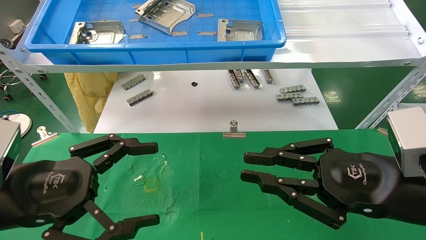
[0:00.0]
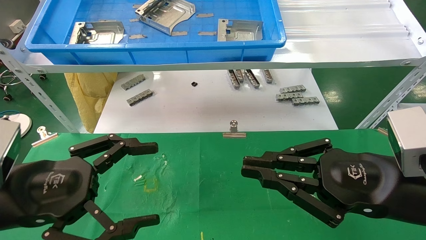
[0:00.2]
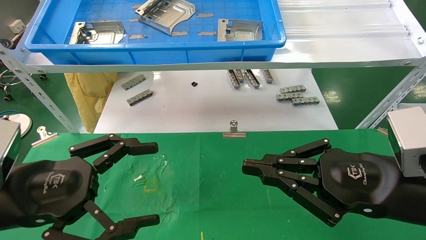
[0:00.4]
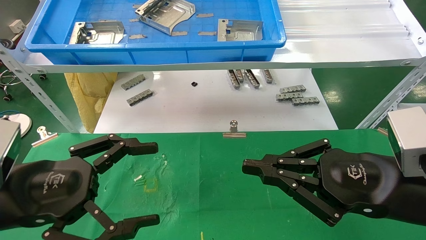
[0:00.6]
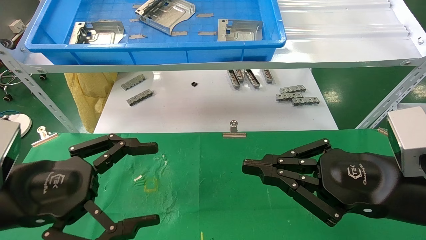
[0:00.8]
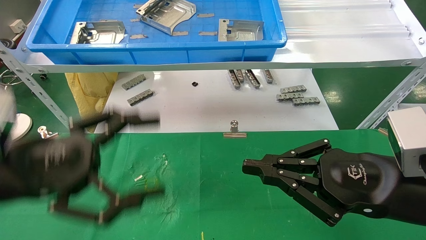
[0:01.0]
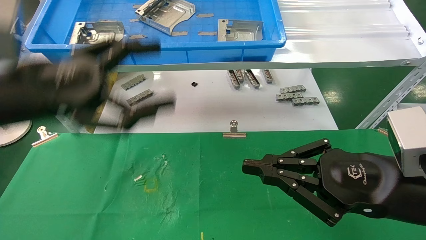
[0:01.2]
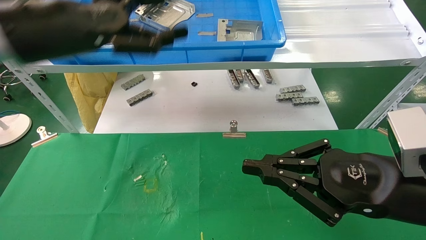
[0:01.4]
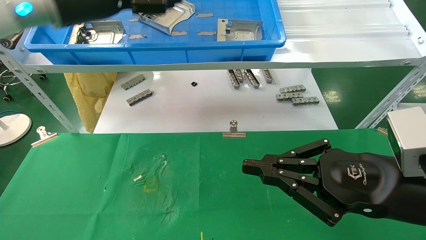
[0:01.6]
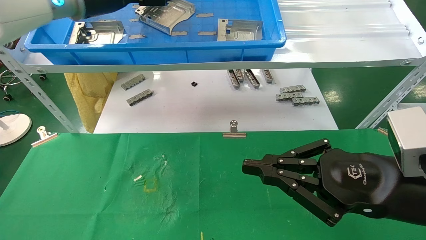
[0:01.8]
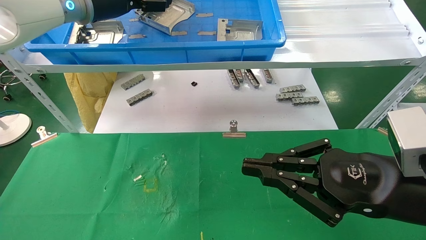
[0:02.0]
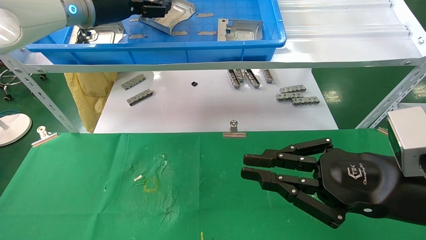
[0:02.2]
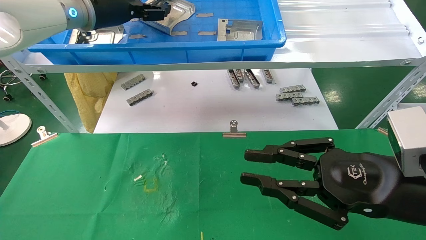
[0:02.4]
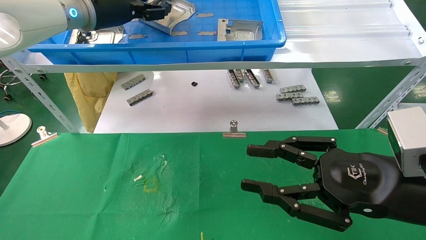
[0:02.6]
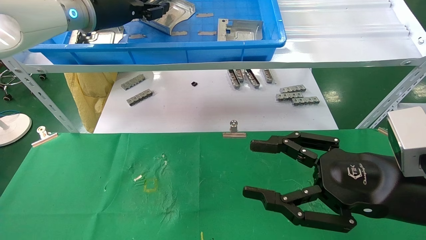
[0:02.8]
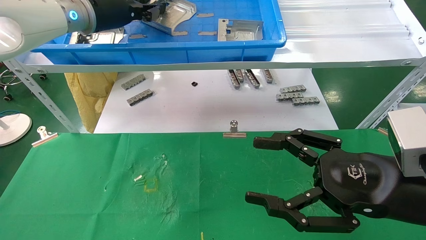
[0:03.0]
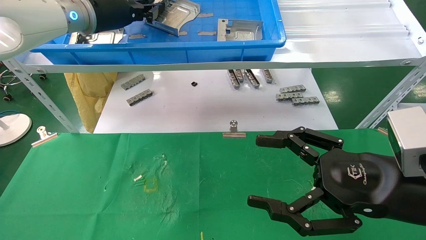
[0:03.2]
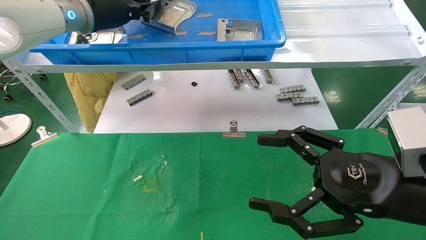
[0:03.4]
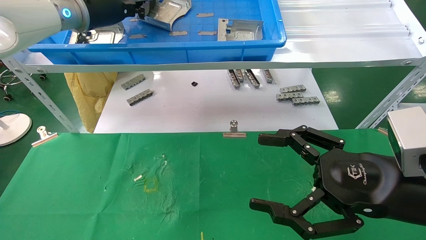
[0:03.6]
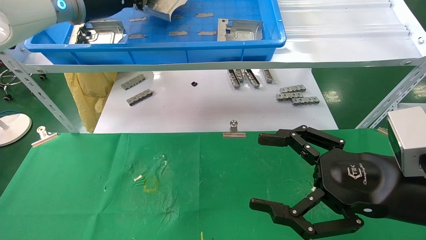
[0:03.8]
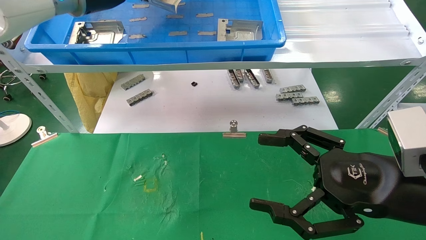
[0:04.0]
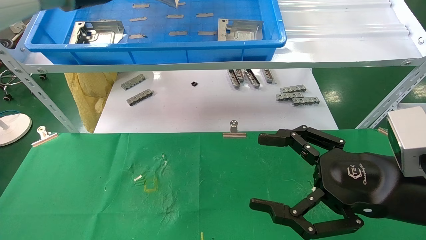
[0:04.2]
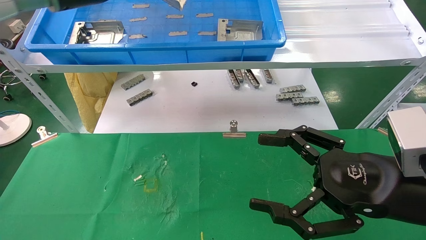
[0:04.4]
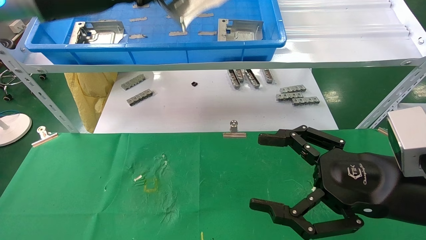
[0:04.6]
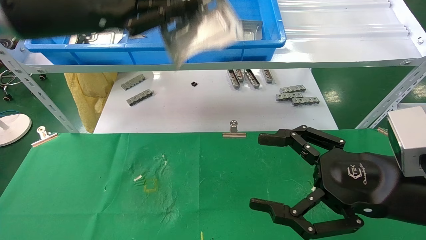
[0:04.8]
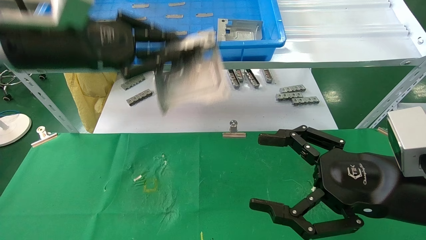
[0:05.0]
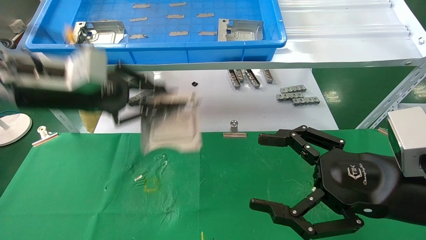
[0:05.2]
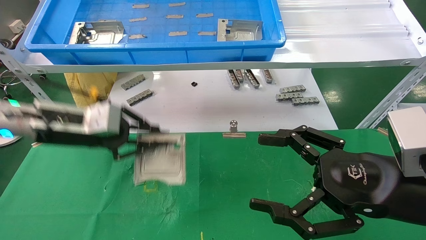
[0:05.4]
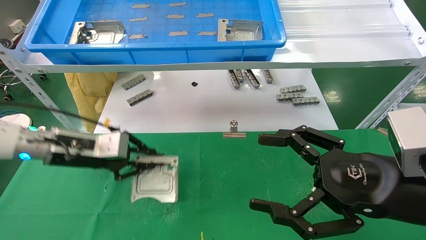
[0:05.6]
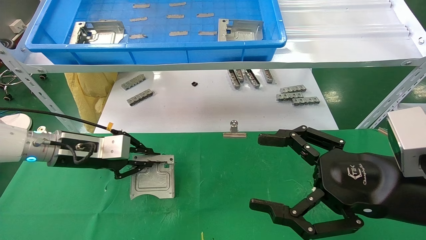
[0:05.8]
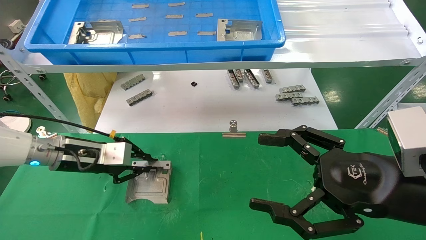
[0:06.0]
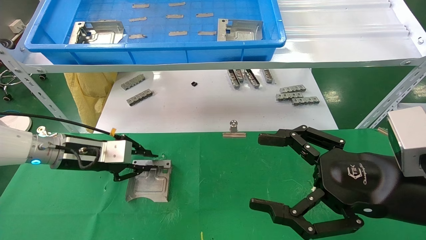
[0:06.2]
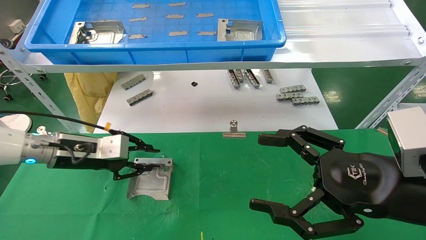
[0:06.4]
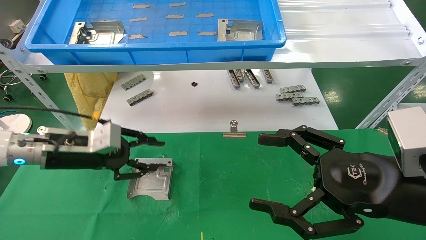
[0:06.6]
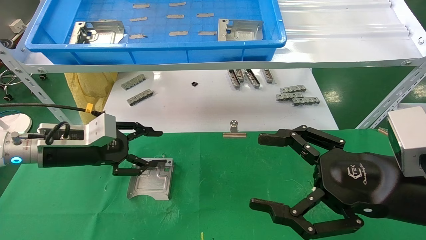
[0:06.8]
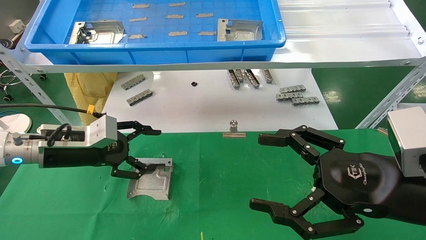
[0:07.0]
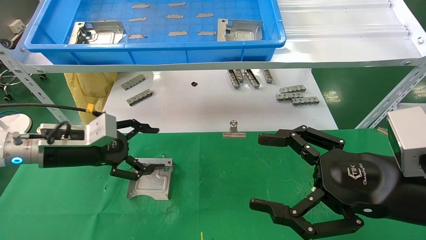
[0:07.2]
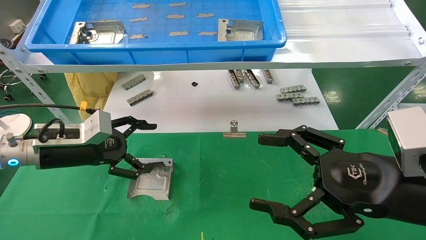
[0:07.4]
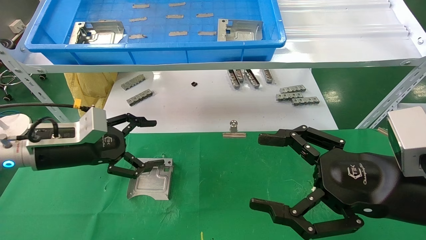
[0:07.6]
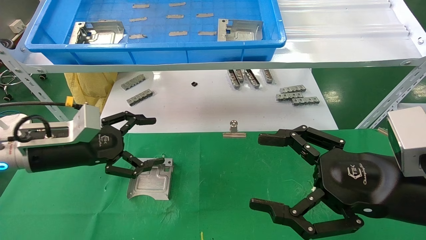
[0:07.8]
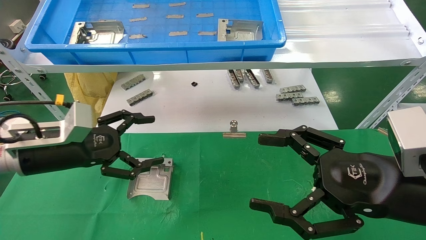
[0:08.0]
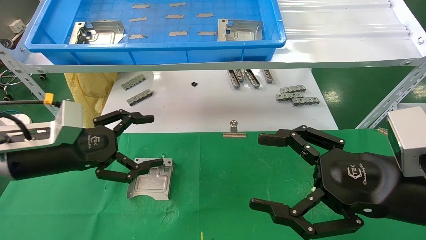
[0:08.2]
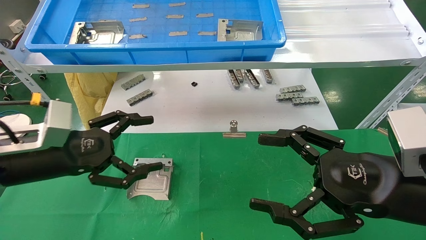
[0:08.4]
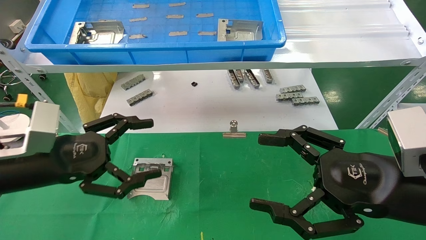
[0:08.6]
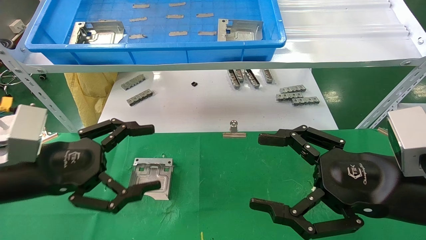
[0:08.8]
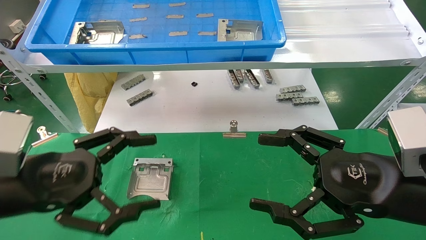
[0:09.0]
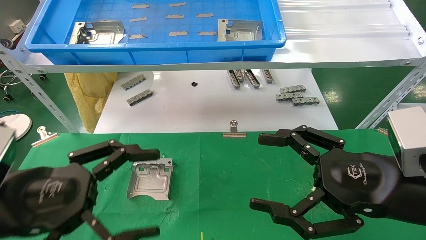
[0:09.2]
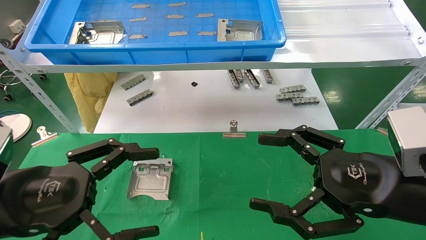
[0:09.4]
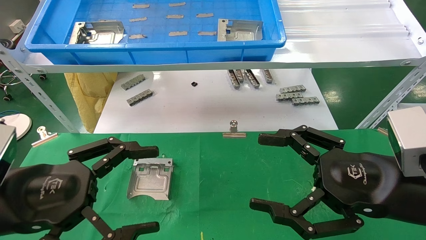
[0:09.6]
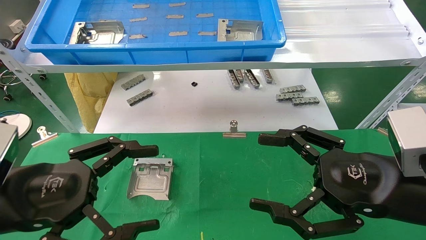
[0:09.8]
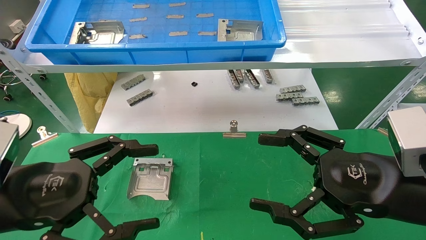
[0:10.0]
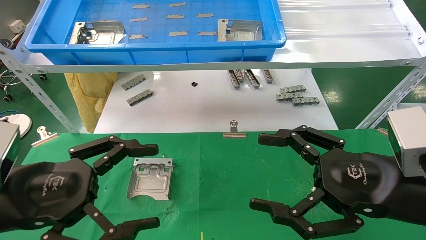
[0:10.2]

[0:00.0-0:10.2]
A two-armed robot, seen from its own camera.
Task of the whole recording: use the mechanical arm to pick up the parts and place them on the table.
Step, 0:01.2 to 0:03.2: Pick up the hard drive bracket from the feeding area.
Step, 0:03.4 to 0:07.2: Place the hard drive bracket into the box.
0:00.0 to 0:01.4: The left gripper goes roughly 20 cm upward and forward.
0:01.4 to 0:03.0: The left gripper goes some 10 cm forward, and closes up. The right gripper opens its fingers.
0:03.0 to 0:04.4: The left gripper goes about 5 cm backward.
0:04.4 to 0:05.8: The left gripper heads downward, covering some 25 cm.
0:05.8 to 0:07.2: The left gripper opens.
0:07.2 to 0:08.8: The left gripper shifts some 15 cm backward.
0:08.8 to 0:10.2: The grippers move only a little.

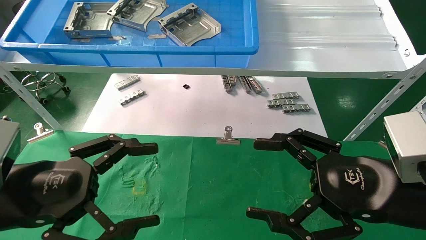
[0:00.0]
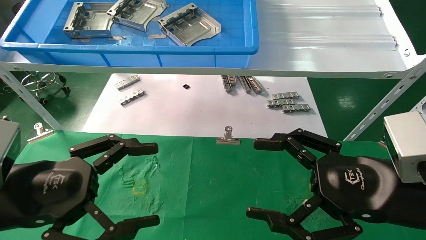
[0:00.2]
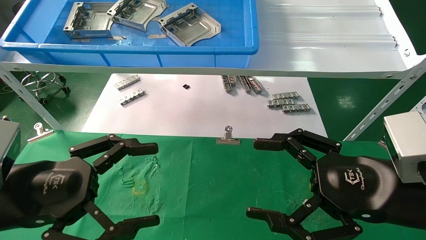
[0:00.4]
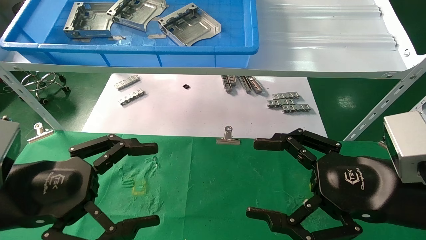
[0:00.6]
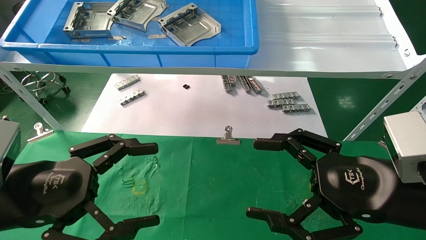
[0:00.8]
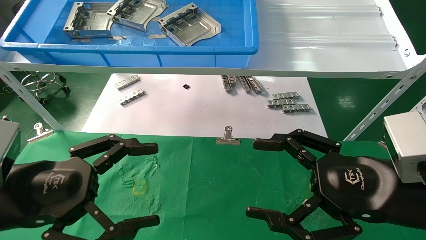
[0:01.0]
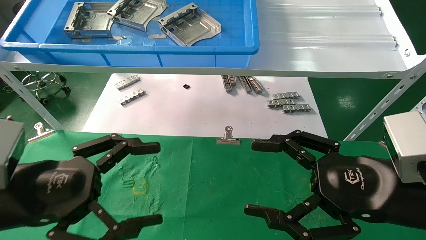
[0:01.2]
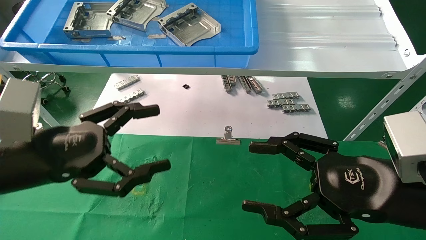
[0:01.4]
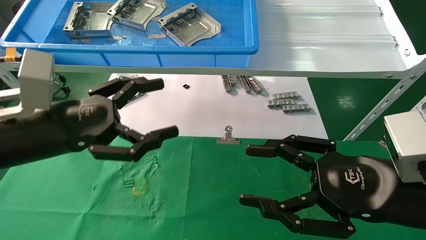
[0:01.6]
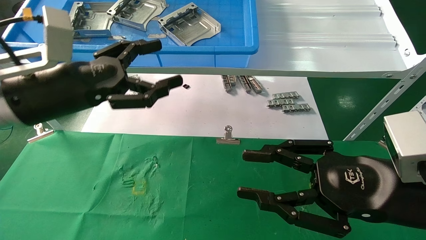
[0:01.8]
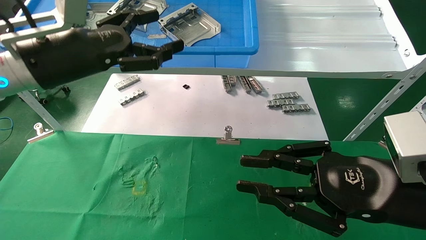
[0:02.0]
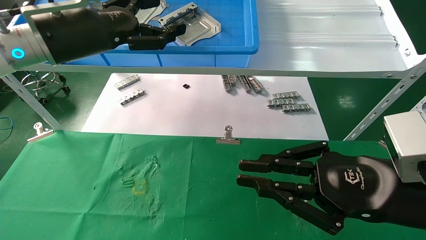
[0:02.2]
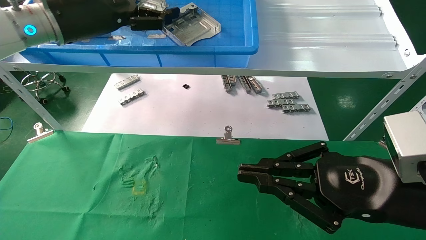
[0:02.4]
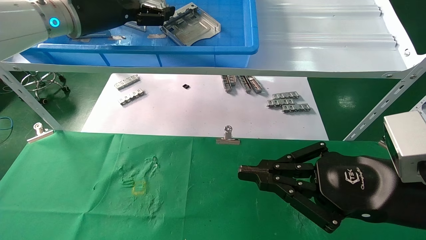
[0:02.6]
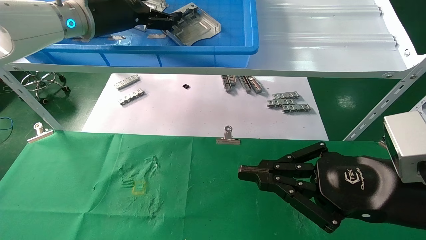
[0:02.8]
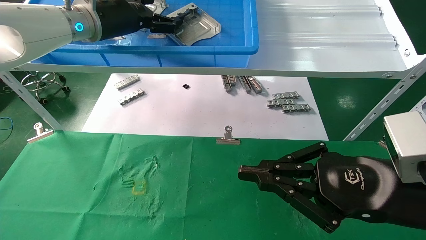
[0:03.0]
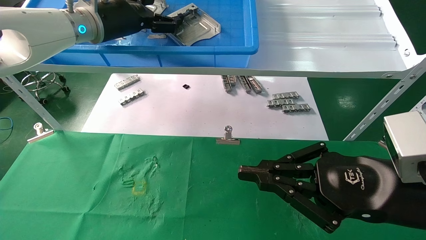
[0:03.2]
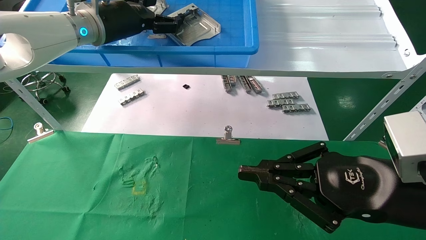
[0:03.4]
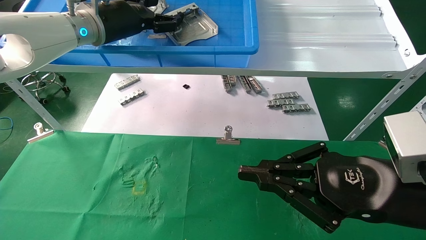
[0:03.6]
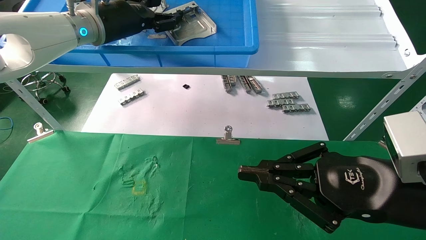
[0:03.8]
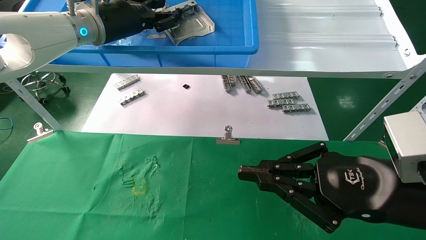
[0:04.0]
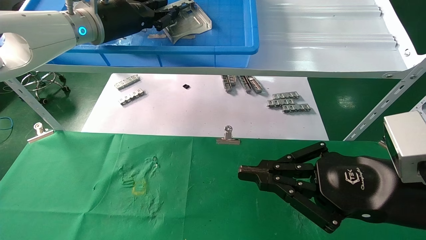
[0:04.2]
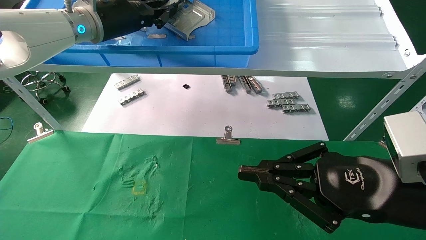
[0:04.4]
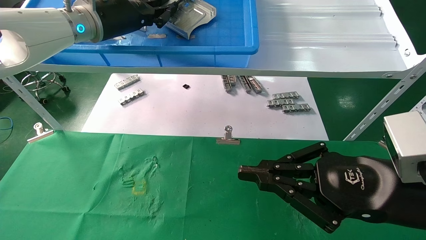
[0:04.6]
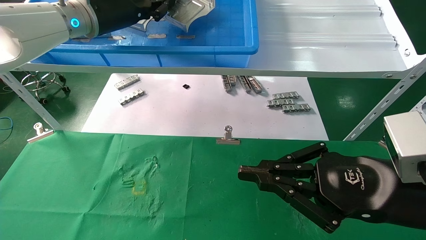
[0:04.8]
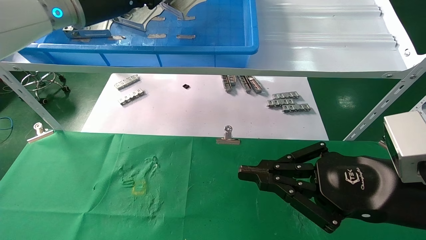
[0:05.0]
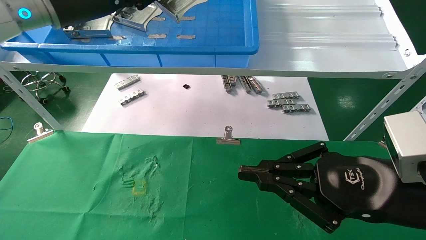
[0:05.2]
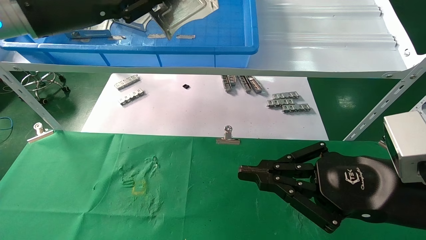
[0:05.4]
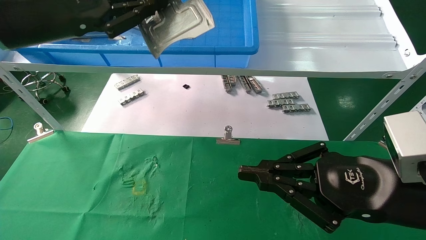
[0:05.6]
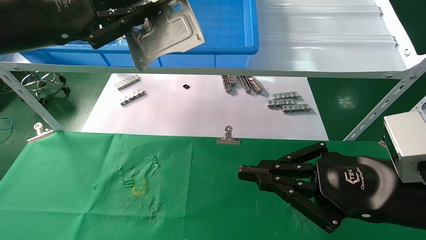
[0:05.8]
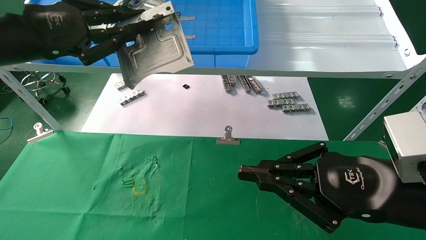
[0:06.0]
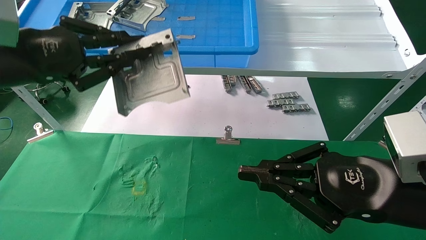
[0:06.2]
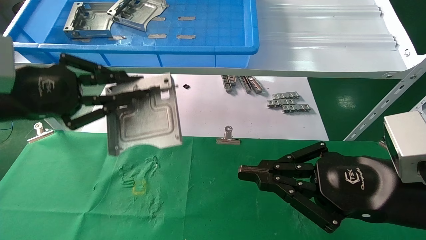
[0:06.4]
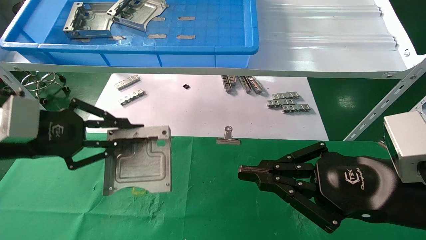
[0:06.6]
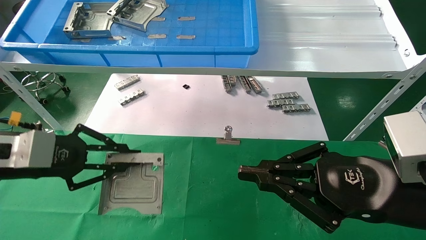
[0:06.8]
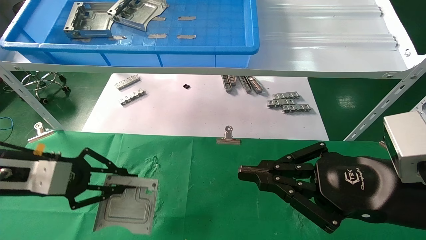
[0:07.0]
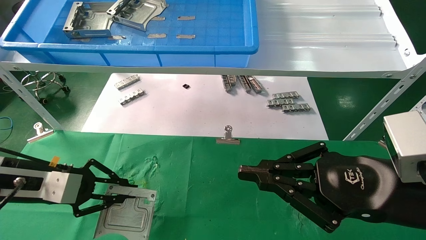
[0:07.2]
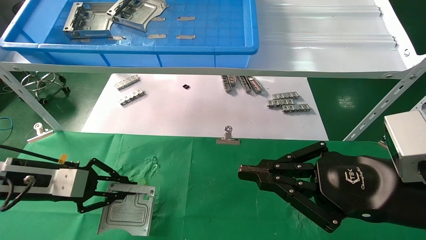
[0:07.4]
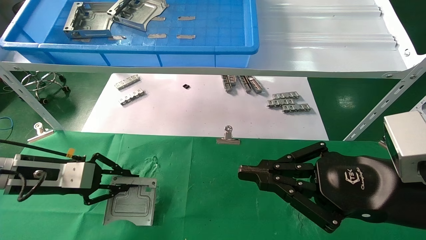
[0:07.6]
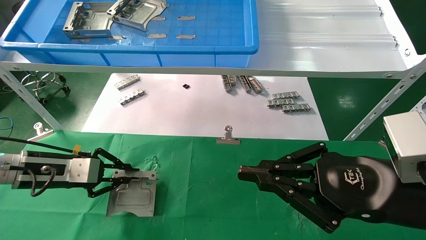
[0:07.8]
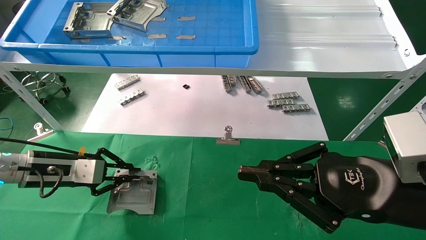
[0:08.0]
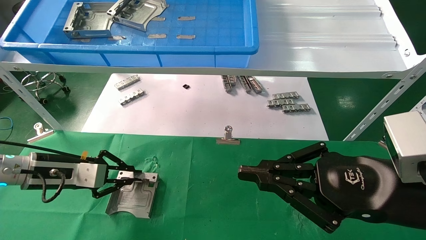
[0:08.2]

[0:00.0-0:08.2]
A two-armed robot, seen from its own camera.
Task of the whole recording: use the mechanical arm to pick up the parts and place them on the table.
Step, 0:01.6 to 0:04.4: Pick up the hard drive bracket from the feeding area.
0:00.0 to 0:01.6: The left gripper goes roughly 10 cm forward and upward.
0:01.6 to 0:03.2: The left gripper heads forward and upward, covering approximately 25 cm; the right gripper closes up.
0:03.2 to 0:05.0: The left gripper closes up.
0:05.0 to 0:06.6: The left gripper travels downward, backward and to the left by approximately 25 cm.
0:06.6 to 0:08.2: The left gripper moves downward and forward, approximately 15 cm.
